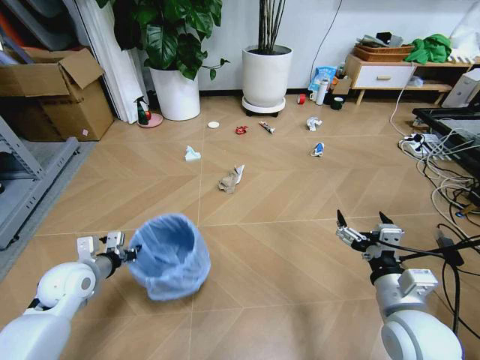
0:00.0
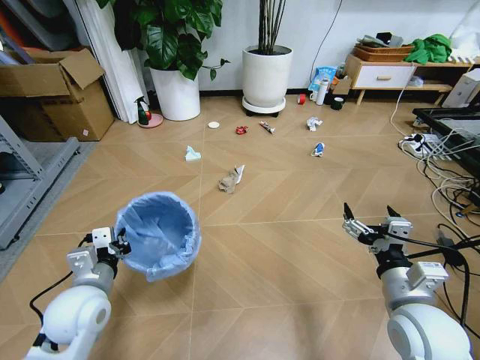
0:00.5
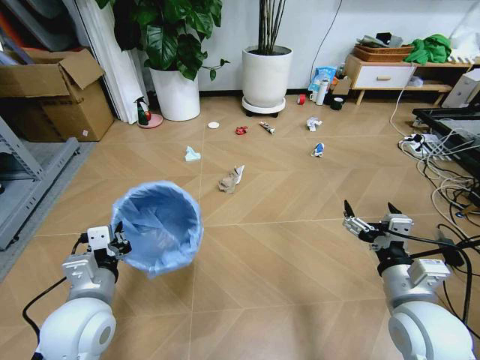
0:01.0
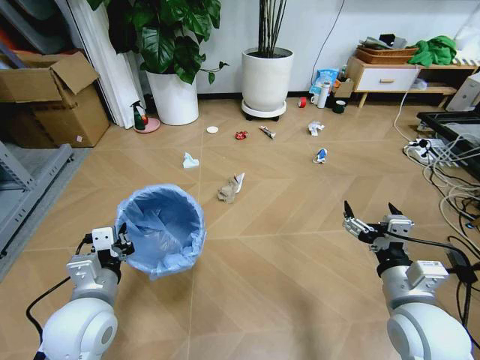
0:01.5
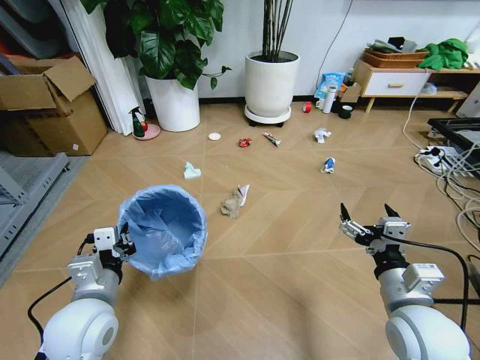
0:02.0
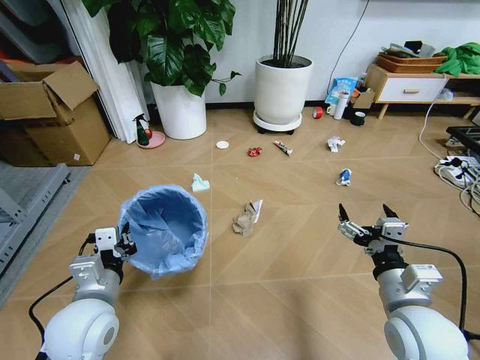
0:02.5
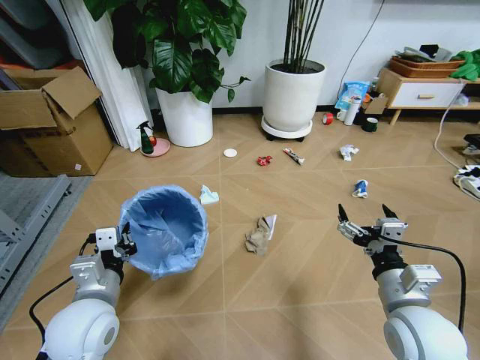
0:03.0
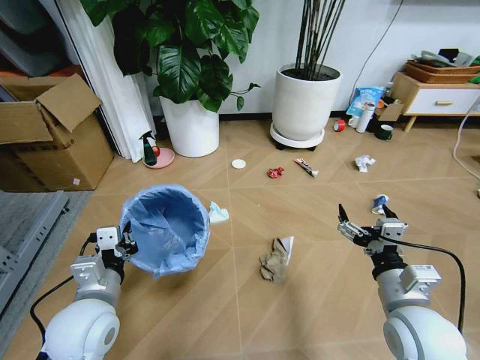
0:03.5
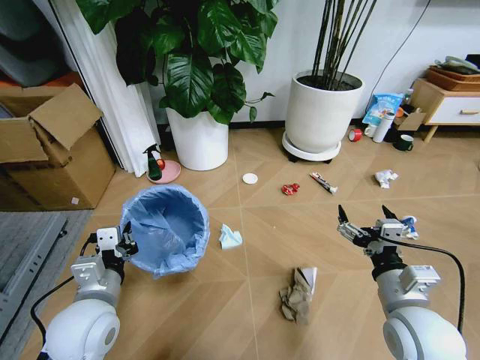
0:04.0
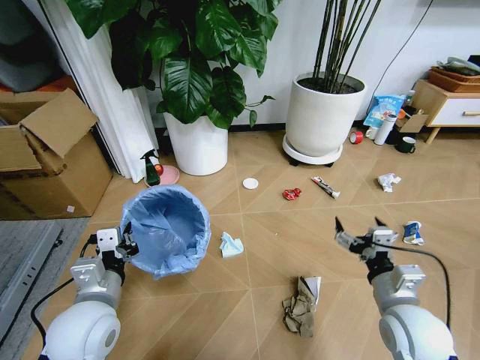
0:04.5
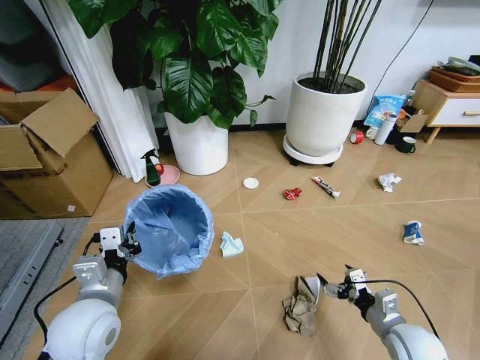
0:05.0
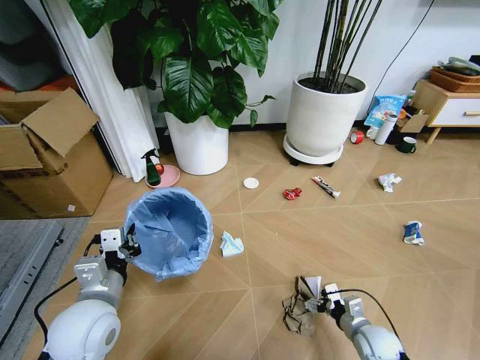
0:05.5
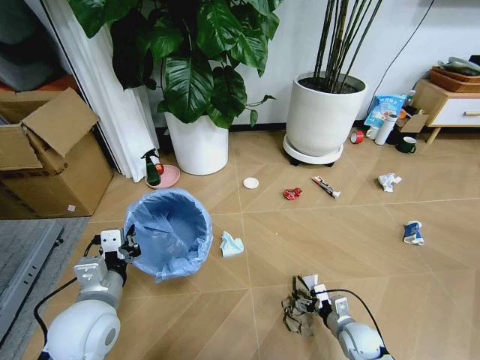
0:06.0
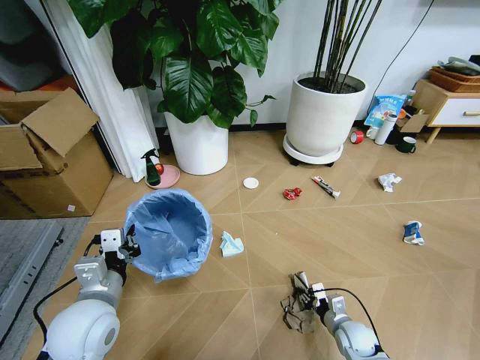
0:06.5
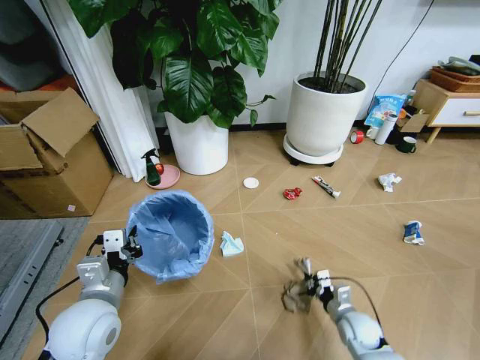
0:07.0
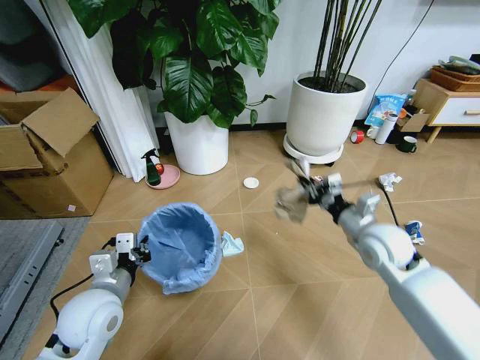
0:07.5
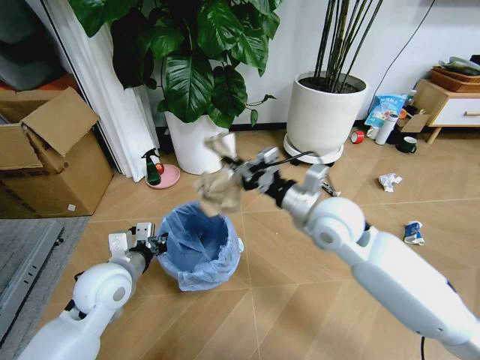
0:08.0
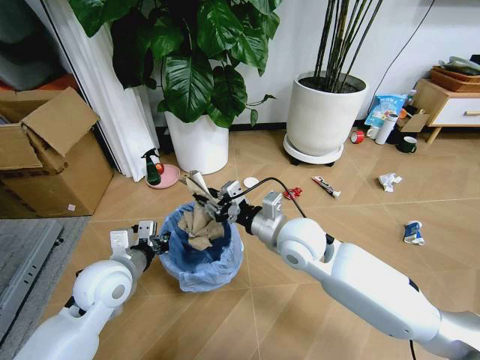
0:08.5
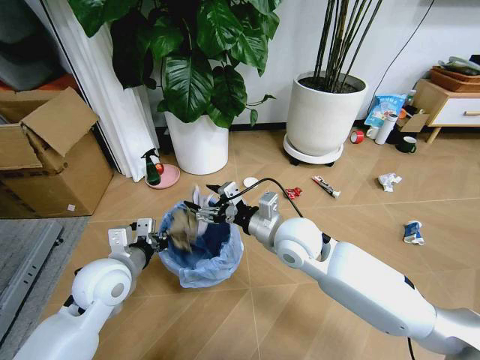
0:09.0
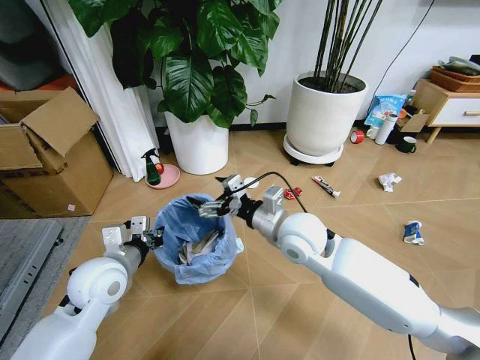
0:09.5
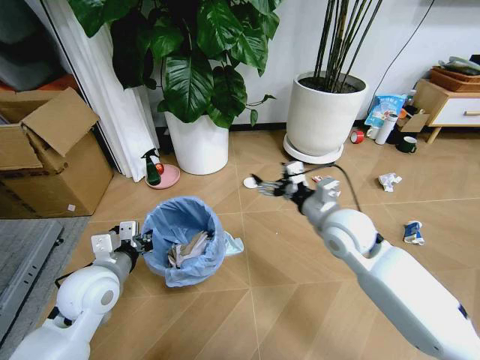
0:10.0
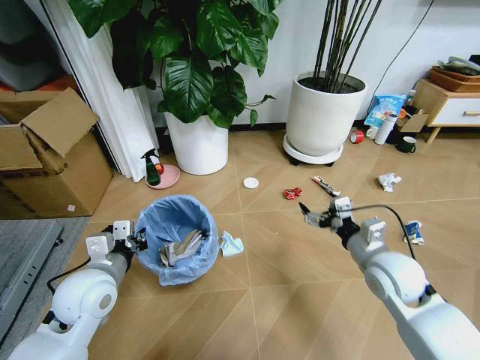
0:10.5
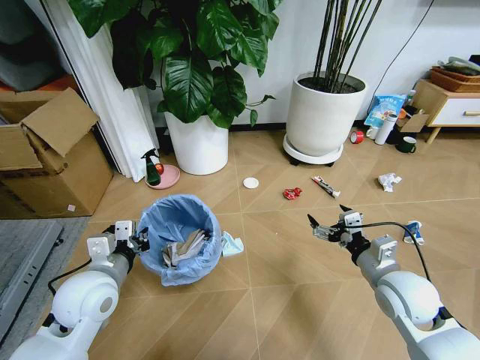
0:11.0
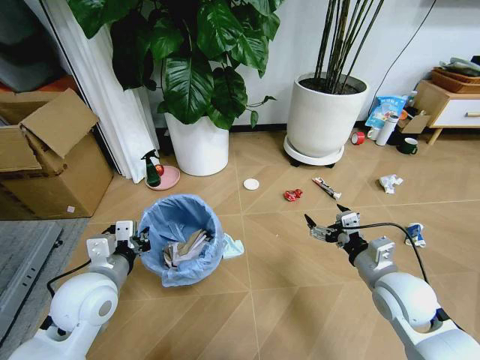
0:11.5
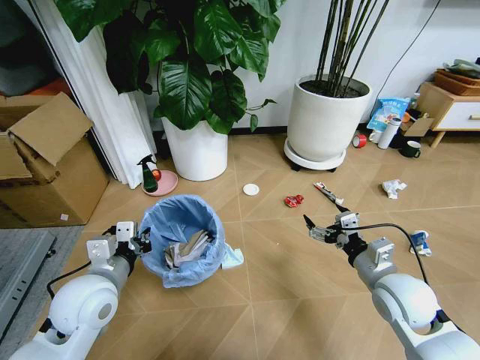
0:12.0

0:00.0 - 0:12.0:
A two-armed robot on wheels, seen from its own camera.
Task of the whole recording: Pick up the trash bin and place the garbage on the floor into it.
0:00.0 - 0:02.0: The left gripper is displaced to the right, backward and upward by some 15 cm.
0:04.0 - 0:06.0: The right gripper travels downward by roughly 30 cm.
0:06.0 - 0:08.0: The right gripper is displaced upward and to the left by roughly 40 cm, and closes up. Meanwhile the left gripper moves forward, about 10 cm.
0:08.0 - 0:10.0: The right gripper is displaced to the right by approximately 5 cm, and opens its fingers.
0:10.0 - 0:12.0: The right gripper is displaced backward, to the right and downward by some 15 cm.

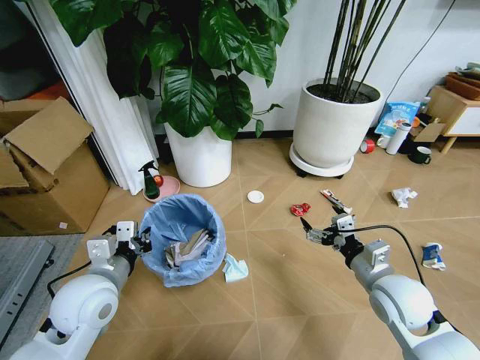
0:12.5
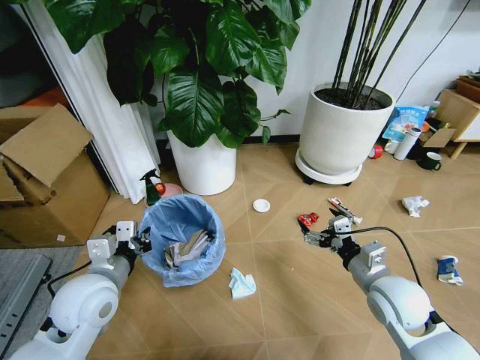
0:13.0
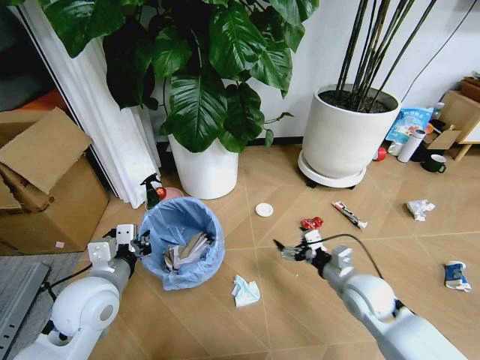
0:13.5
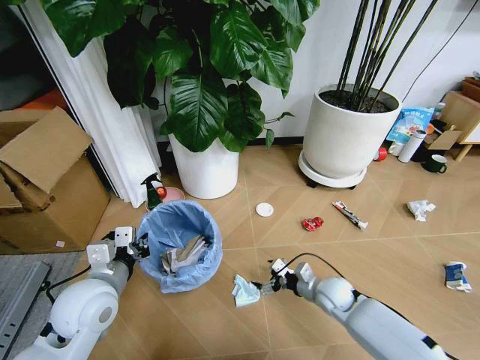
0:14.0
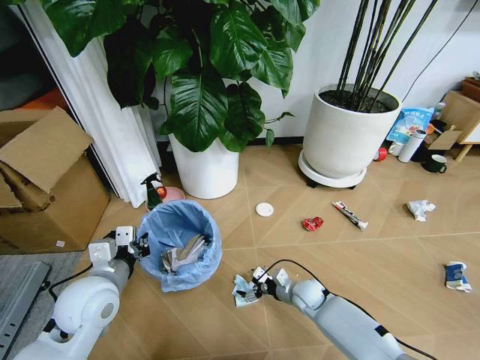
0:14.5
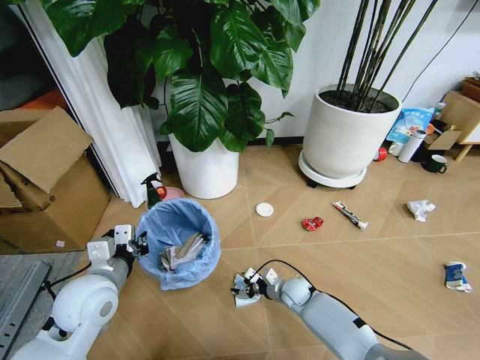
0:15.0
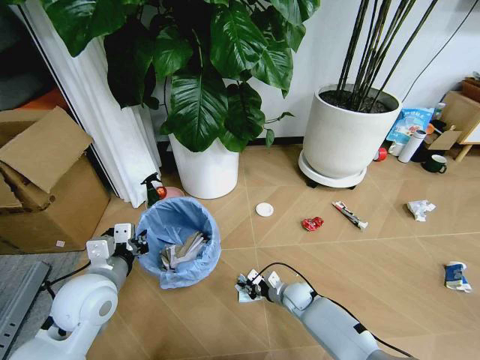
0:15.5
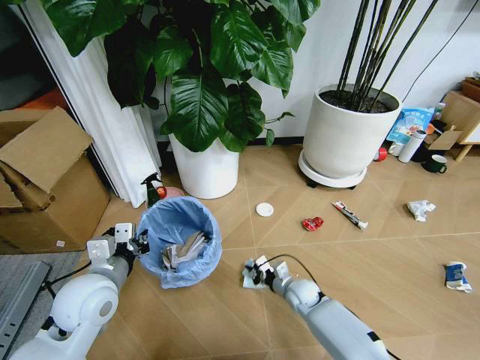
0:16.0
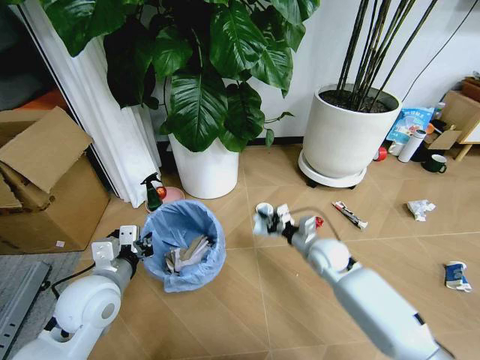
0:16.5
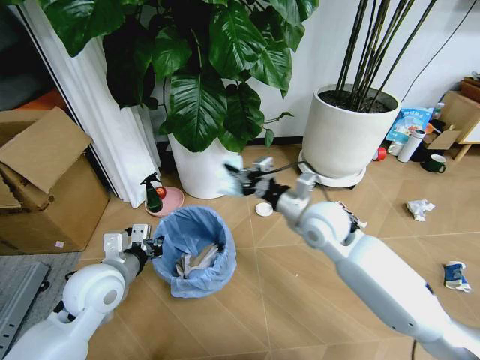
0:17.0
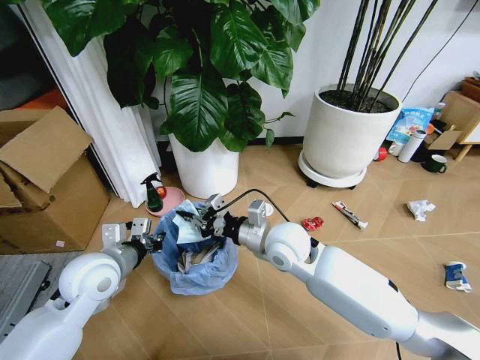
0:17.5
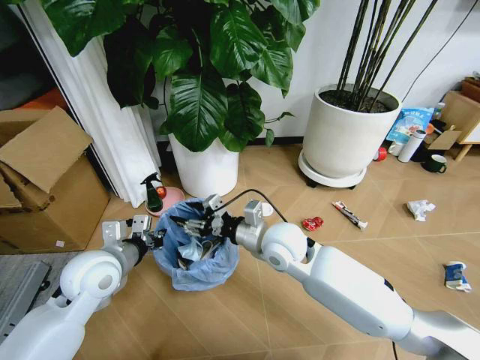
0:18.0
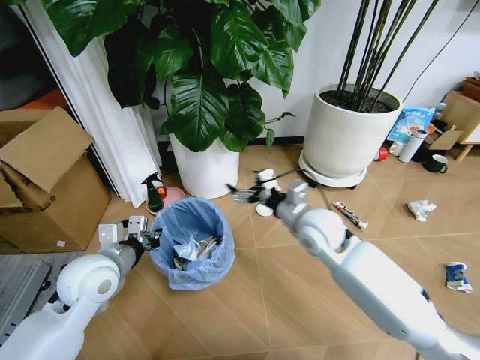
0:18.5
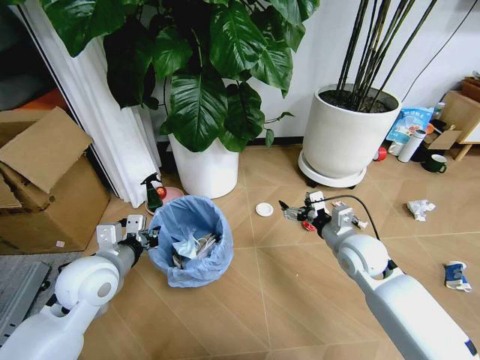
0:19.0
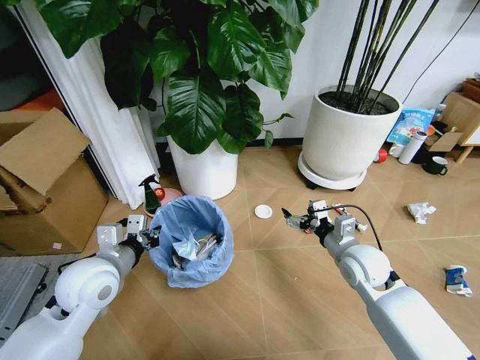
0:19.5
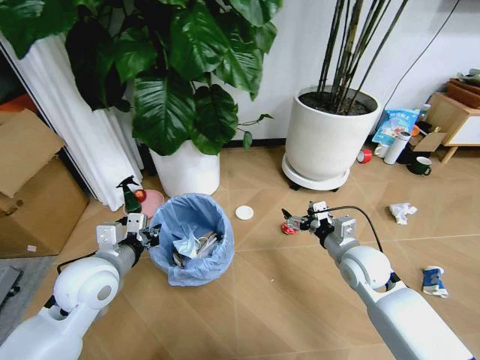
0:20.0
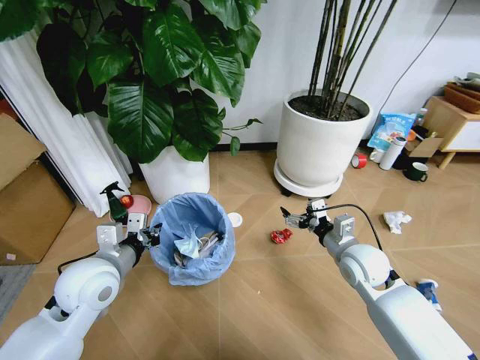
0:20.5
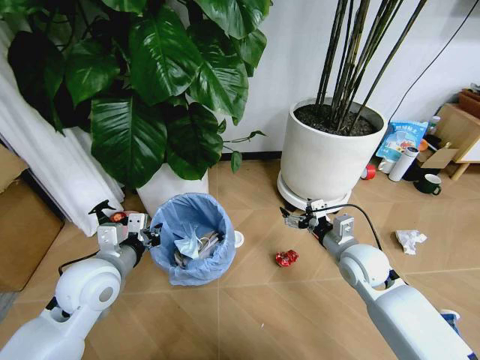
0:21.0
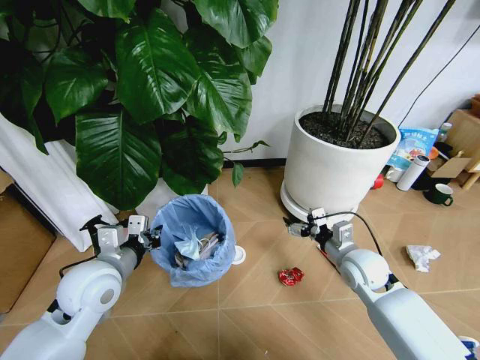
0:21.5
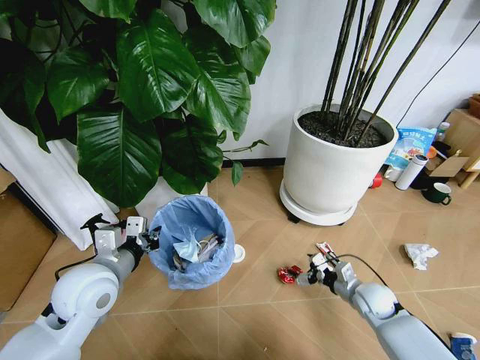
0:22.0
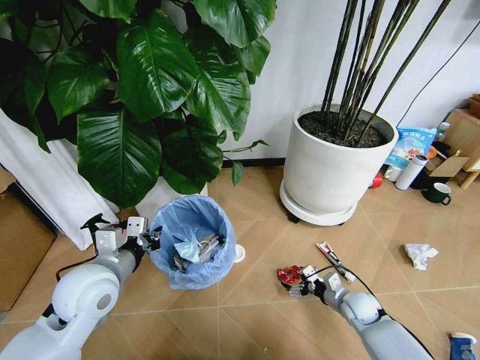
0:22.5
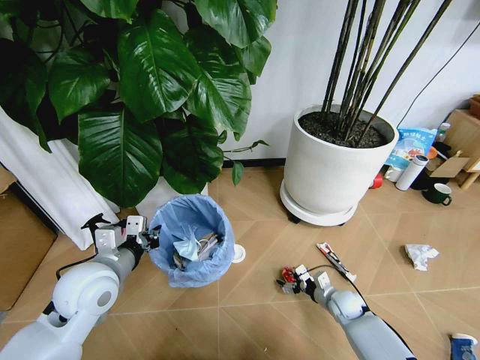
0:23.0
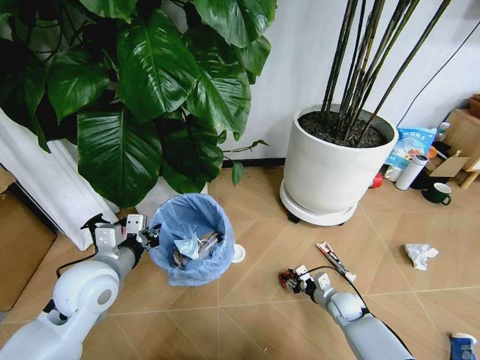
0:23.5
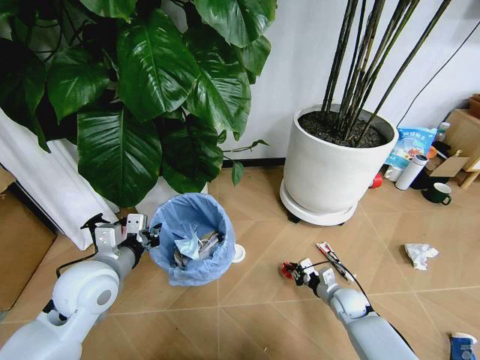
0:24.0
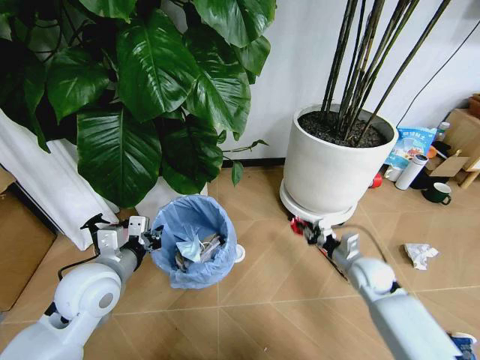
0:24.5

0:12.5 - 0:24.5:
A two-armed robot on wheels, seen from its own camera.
Task of the whole recording: Pick up the trash bin and place the garbage on the floor into it.
0:12.5 - 0:14.5: The right gripper is displaced downward, to the left and forward by roughly 25 cm.
0:14.5 - 0:16.5: The right gripper moves upward, some 20 cm, and closes up.
0:16.5 - 0:18.5: The right gripper shifts some 15 cm upward and to the left, and opens.
0:18.5 - 0:20.5: The right gripper moves to the right and downward, approximately 15 cm.
0:20.5 - 0:22.5: The right gripper shifts about 20 cm downward.
0:22.5 - 0:24.5: The right gripper moves upward, about 10 cm, and closes.

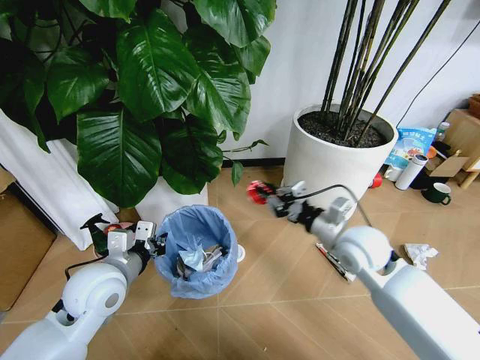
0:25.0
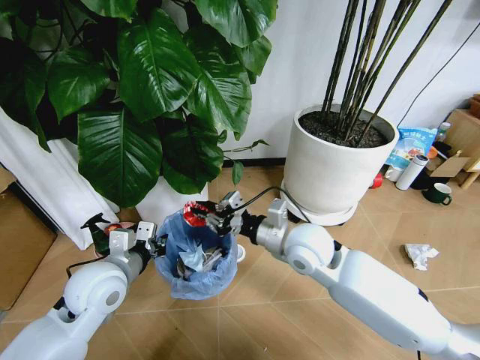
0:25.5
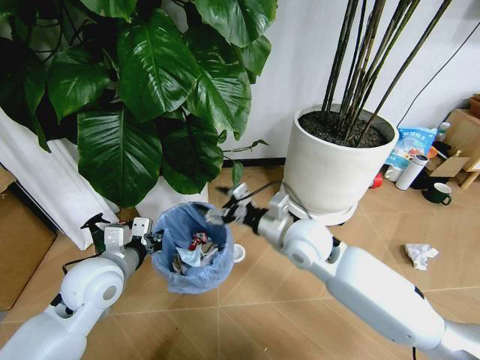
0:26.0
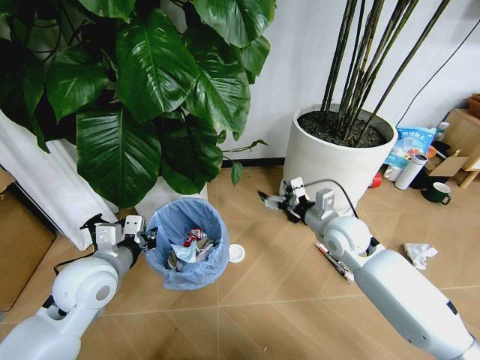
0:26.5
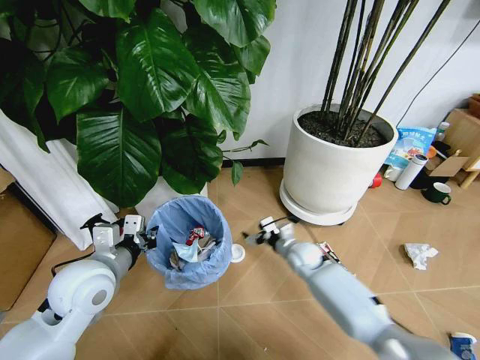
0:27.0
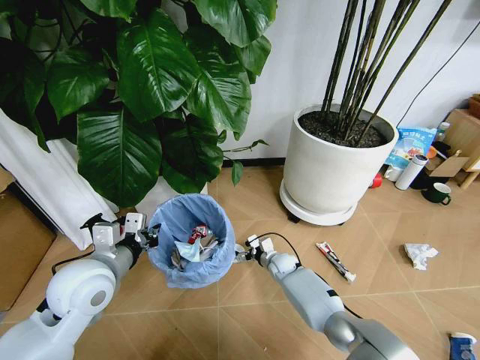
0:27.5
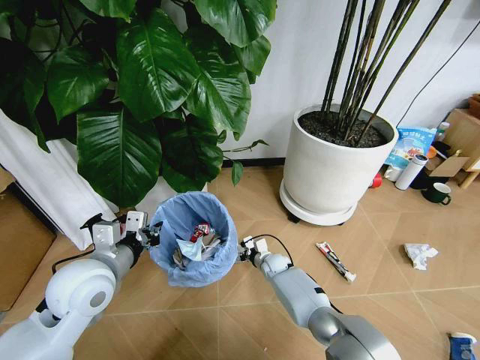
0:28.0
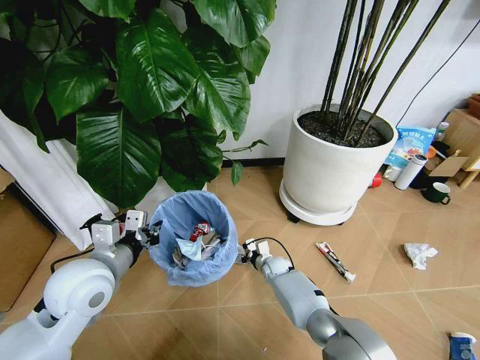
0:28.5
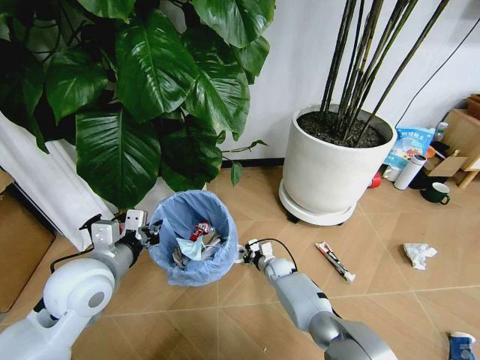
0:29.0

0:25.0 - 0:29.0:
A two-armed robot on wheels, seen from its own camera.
Task of the whole recording: Pick up the trash bin and place the garbage on the floor into it.
0:25.0 - 0:27.0: The right gripper goes about 25 cm downward and forward, and opens.
0:27.0 - 0:29.0: The right gripper shifts approximately 10 cm downward, and closes.
